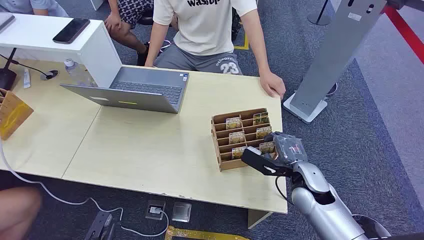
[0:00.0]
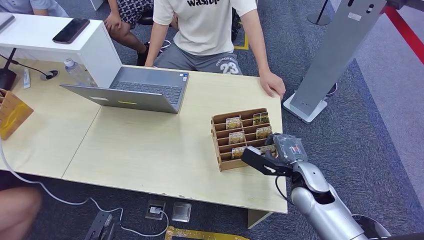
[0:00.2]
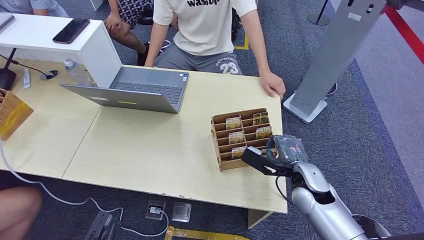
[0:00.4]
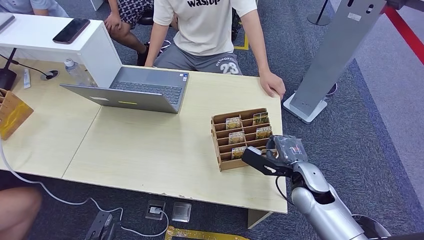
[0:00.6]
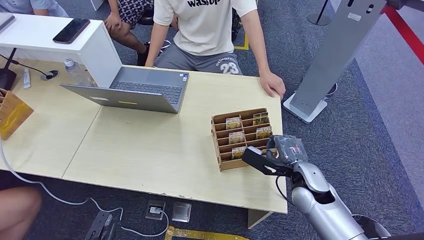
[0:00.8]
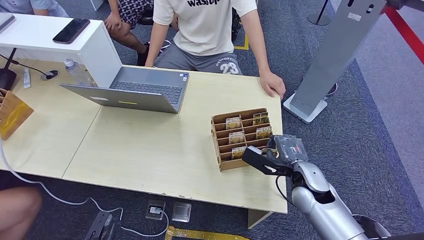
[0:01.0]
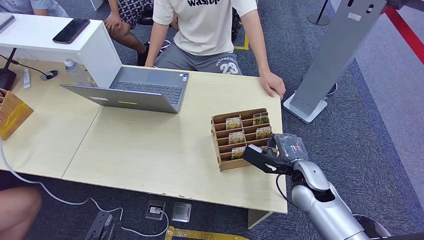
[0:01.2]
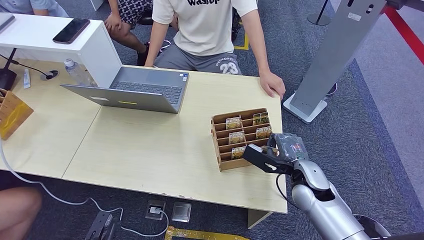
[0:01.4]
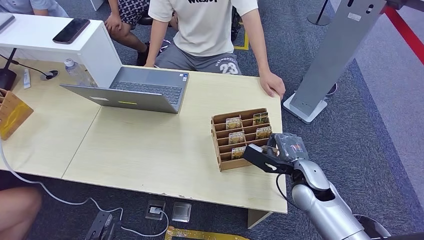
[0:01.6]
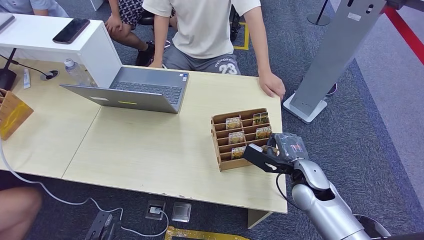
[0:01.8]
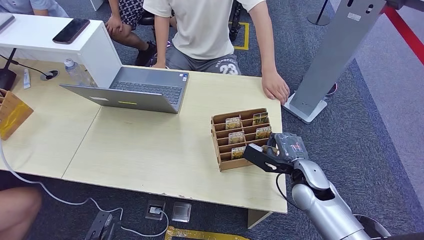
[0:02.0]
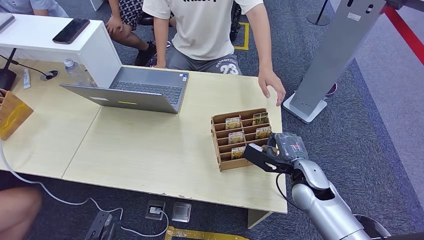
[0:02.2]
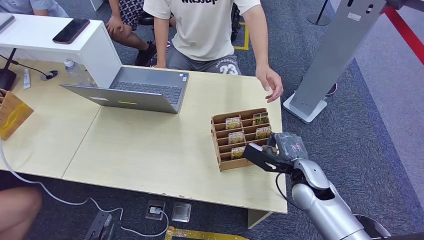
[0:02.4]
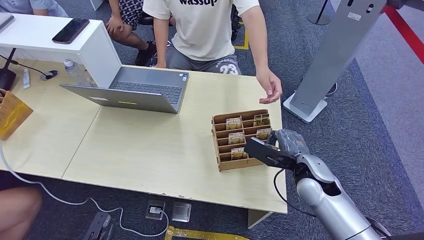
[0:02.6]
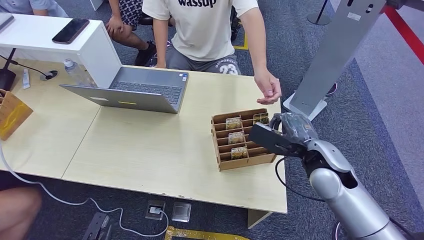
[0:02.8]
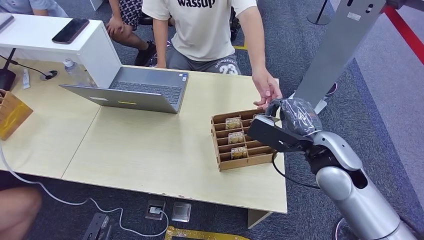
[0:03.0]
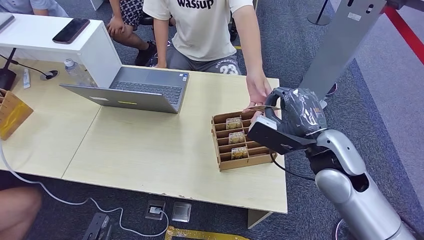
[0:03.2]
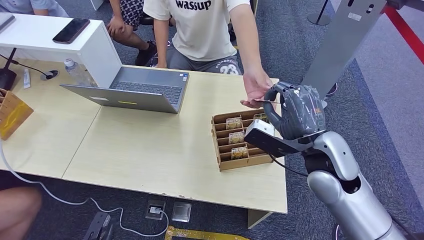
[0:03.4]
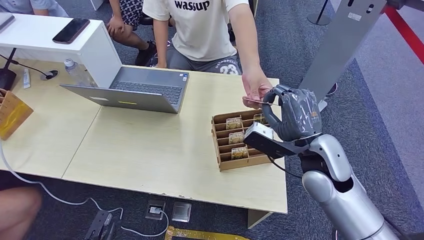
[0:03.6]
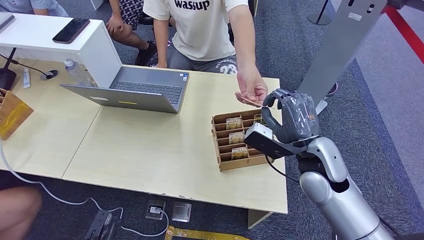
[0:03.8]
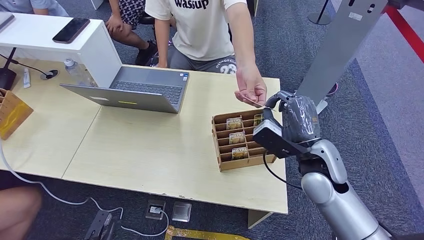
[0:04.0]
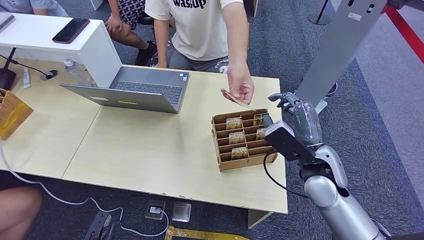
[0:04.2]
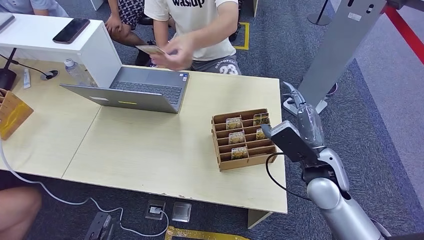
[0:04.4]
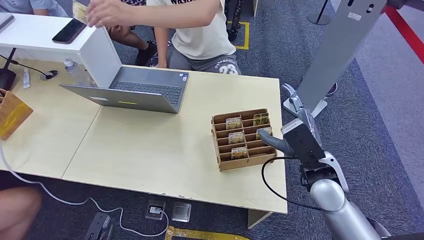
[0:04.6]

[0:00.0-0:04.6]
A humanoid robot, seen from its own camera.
Step, 0:00.0 to 0:02.8: Pick up the key card from the card box.
Step, 0:03.0 to 0:04.4: Hand the key card to the target.
0:01.6 to 0:03.0: The right hand shifts some 15 cm upward.
0:03.0 to 0:04.6: The right hand shifts about 5 cm downward.

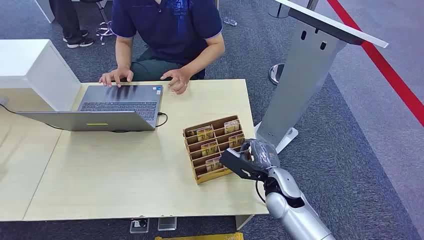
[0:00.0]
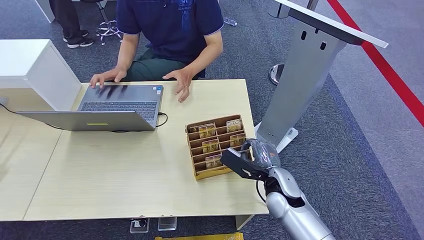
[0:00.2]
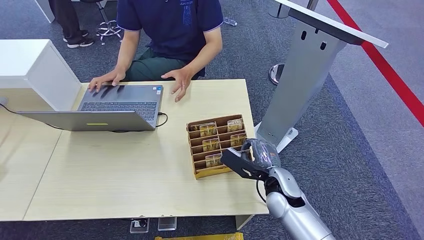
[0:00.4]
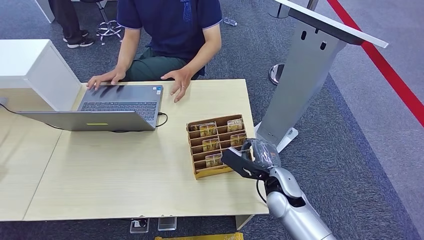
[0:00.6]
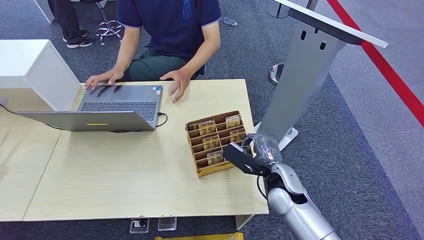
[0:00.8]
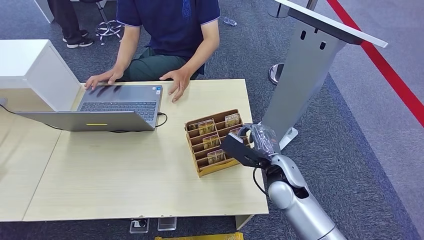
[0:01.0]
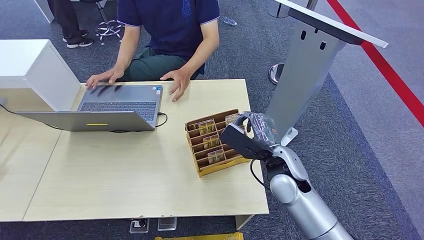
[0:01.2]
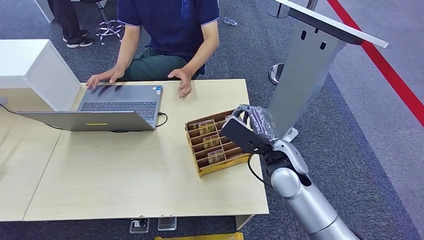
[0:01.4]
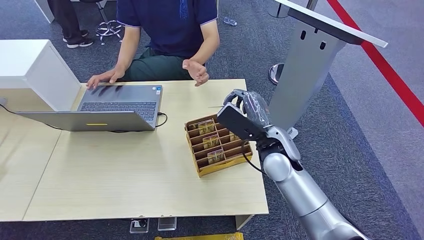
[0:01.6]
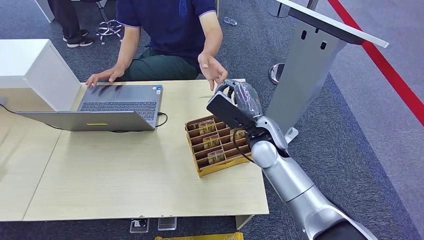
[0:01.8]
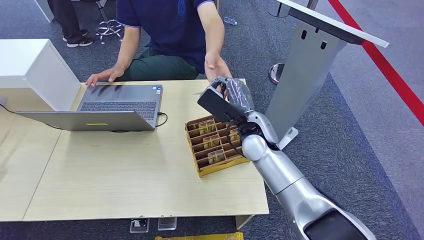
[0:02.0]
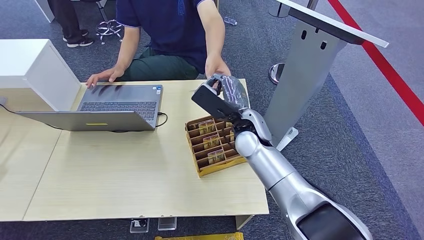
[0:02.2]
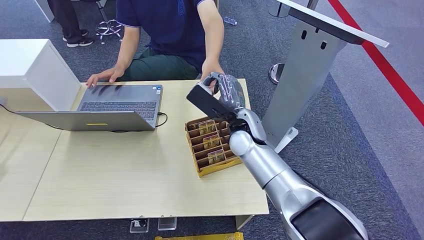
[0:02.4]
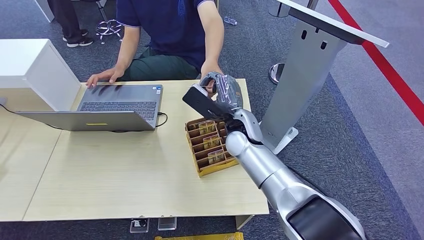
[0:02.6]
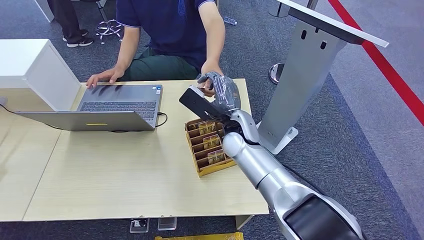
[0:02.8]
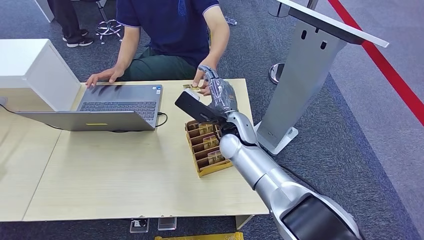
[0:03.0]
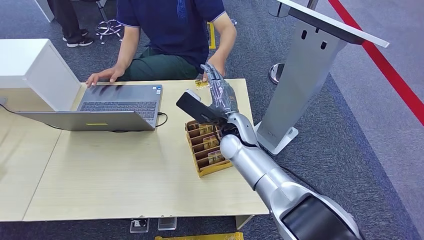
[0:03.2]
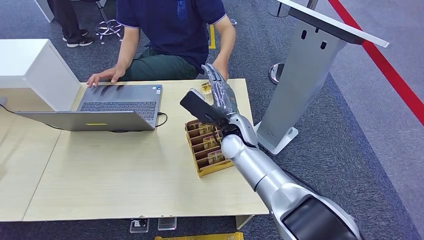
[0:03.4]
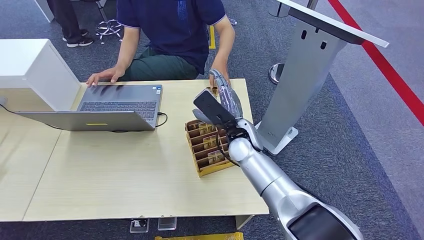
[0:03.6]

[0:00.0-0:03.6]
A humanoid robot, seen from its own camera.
Step, 0:00.0 to 0:01.2: Pick up the key card from the card box.
Step, 0:01.4 to 0:03.6: Hand the key card to the target.
0:01.8 to 0:03.6: The right hand is displaced to the left by some 5 cm.
